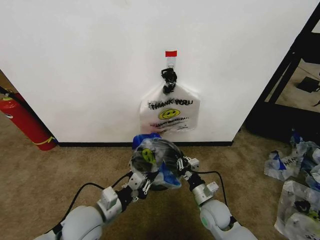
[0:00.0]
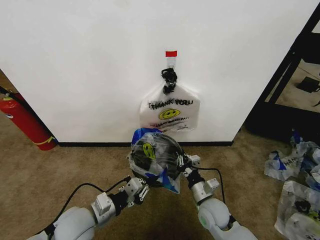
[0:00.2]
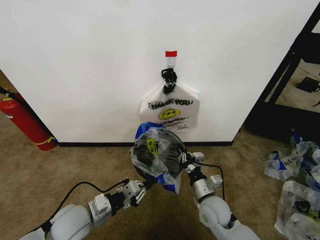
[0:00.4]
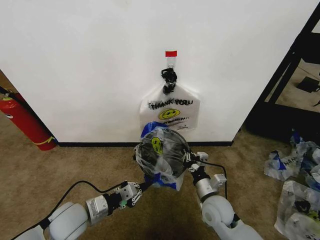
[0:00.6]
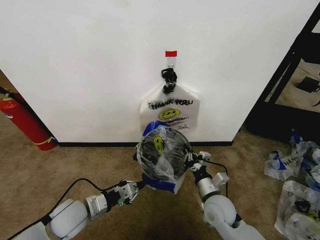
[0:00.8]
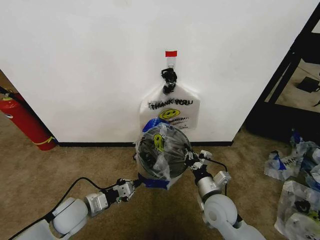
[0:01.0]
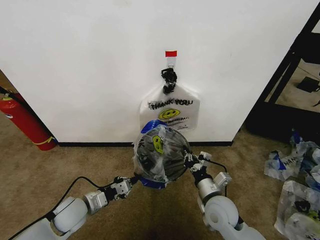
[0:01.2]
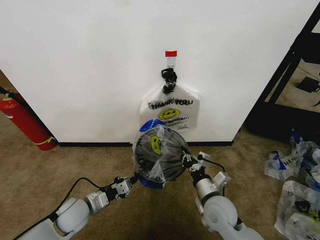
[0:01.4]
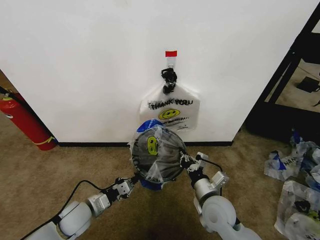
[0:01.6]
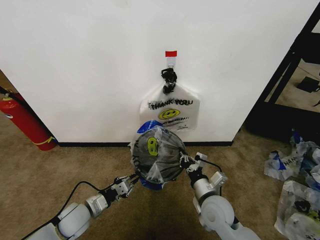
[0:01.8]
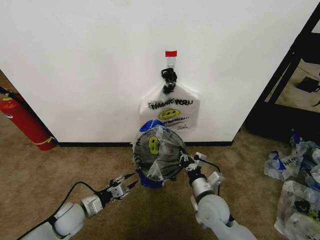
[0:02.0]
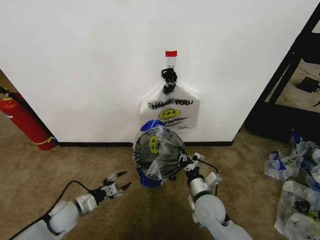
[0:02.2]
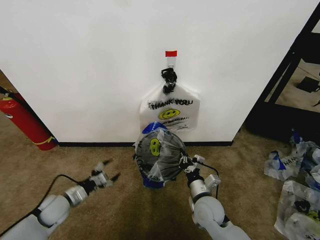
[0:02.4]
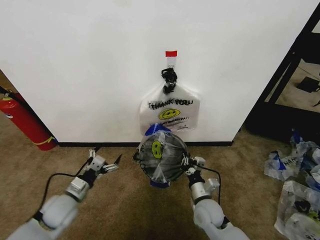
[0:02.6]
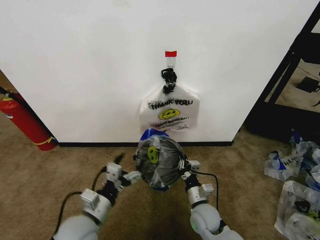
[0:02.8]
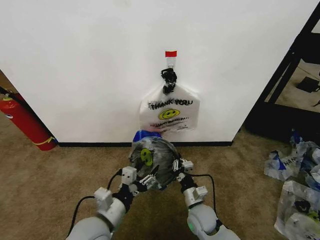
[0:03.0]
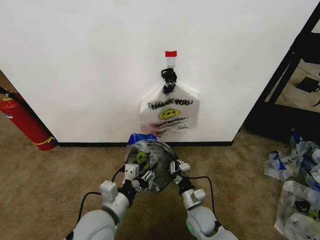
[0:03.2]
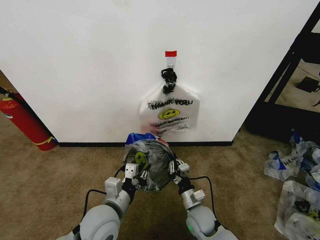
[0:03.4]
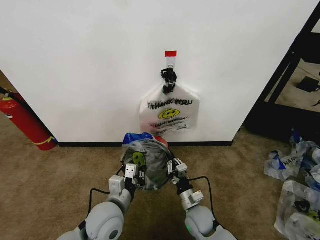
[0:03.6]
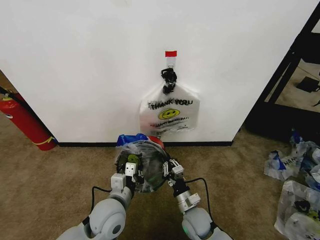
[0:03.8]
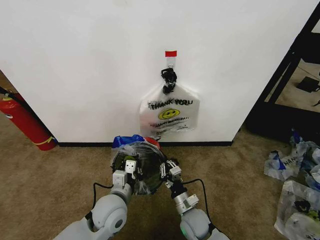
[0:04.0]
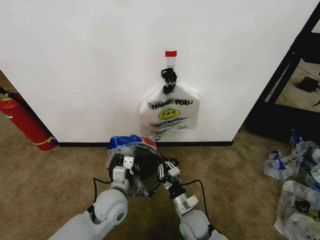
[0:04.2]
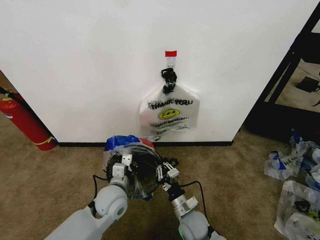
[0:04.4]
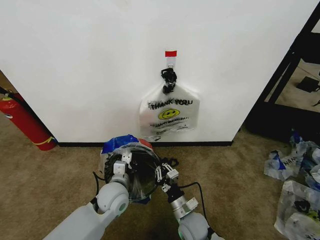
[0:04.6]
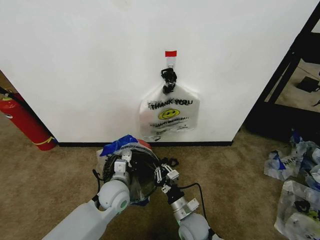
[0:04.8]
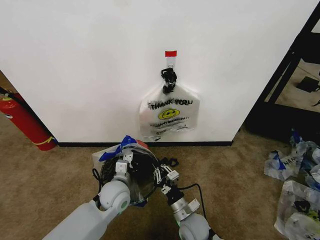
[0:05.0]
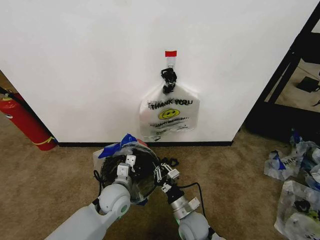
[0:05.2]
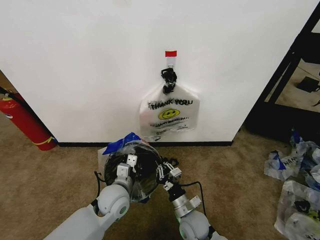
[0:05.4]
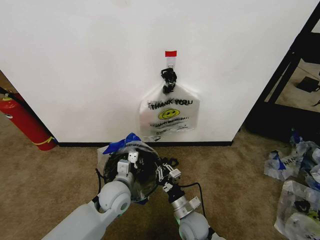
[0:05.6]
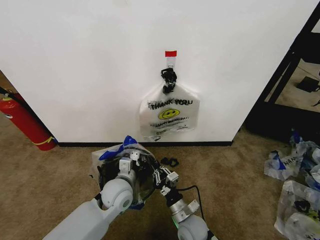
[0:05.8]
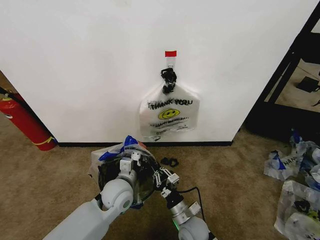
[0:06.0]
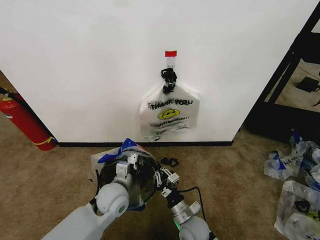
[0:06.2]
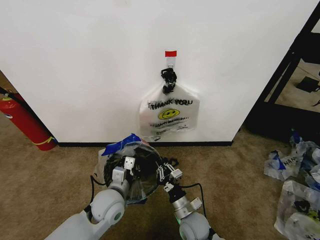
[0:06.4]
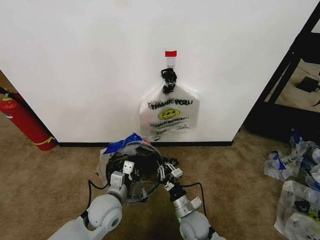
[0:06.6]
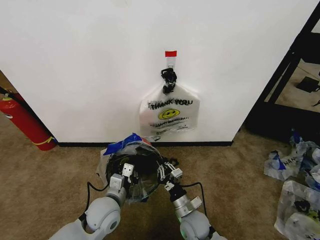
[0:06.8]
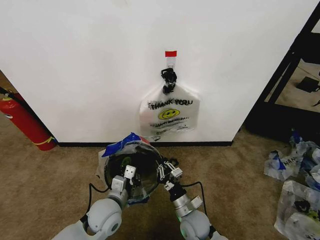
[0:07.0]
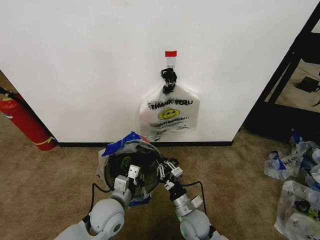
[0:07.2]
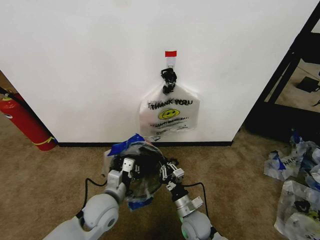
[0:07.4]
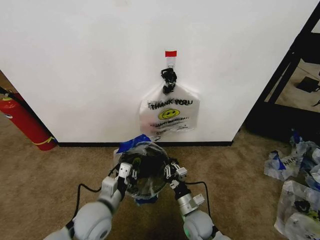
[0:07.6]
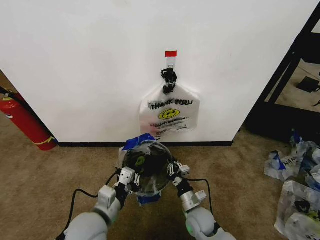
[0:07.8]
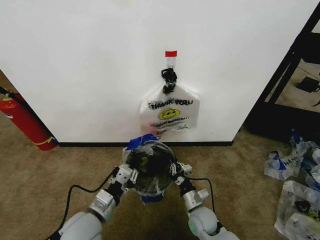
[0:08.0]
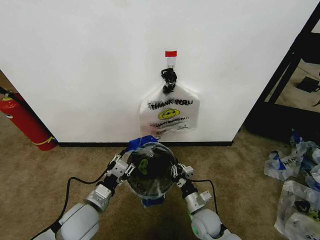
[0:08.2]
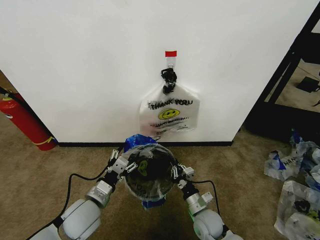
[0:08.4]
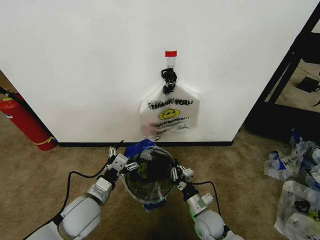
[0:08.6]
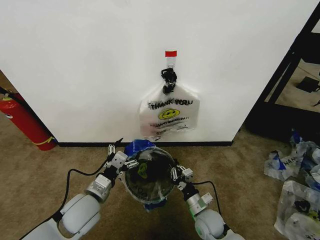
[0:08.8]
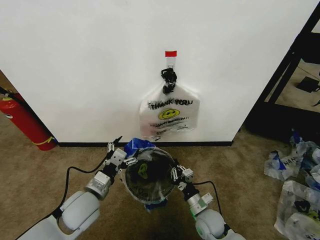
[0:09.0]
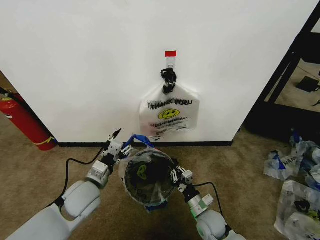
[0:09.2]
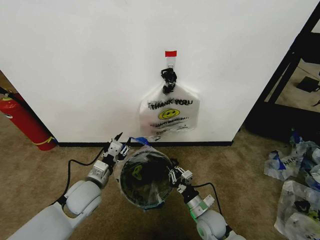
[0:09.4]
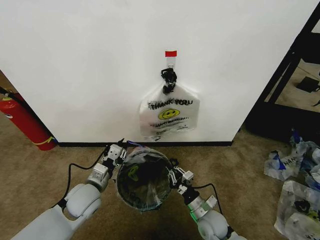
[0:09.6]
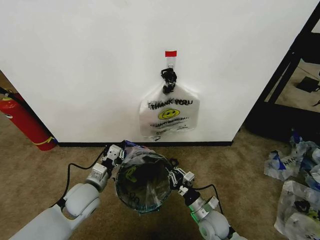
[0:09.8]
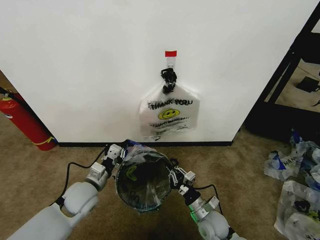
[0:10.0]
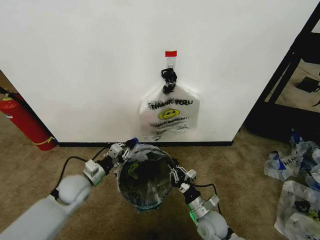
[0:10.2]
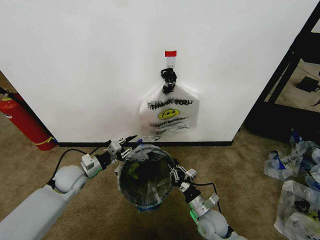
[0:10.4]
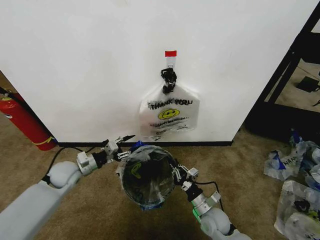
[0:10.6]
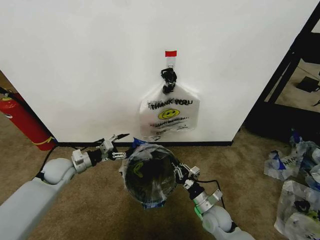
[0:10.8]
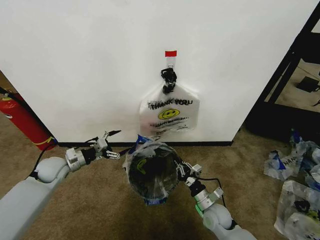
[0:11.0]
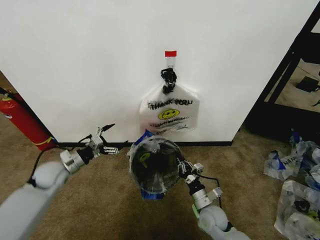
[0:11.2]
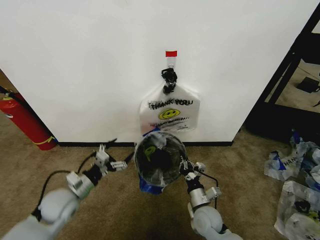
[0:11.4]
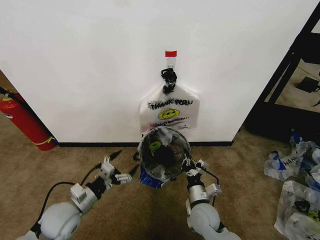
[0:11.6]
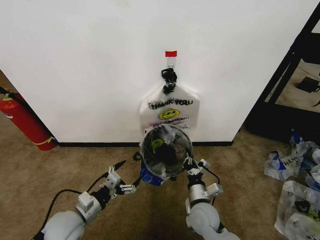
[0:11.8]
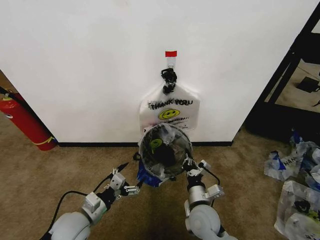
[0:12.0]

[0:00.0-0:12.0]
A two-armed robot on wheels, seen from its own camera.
Task of the whole recording: Pick up the garbage bag from the wall and place it over the trash bin.
0.0 to 1.6 s: The right gripper travels upward by approximately 10 cm; the left gripper travels downward and to the left by about 10 cm.
1.6 to 3.0 s: The right gripper travels downward by some 10 cm. The left gripper shifts approximately 15 cm upward, to the right and backward, and opens.
3.0 to 4.4 s: The left gripper goes roughly 10 cm forward, and closes its fingers.
4.4 to 6.0 s: There are only small adjustments of the grippers.
6.0 to 7.6 s: The left gripper is displaced backward and to the left by approximately 10 cm.
7.6 to 9.0 s: The left gripper moves about 5 cm, and opens its fingers.
9.0 to 10.4 s: The left gripper travels forward and to the left by about 15 cm, and closes its fingers.
10.4 to 12.0 s: The right gripper shifts roughly 5 cm upward. Meanwhile the left gripper travels backward by approximately 15 cm, and opens up.

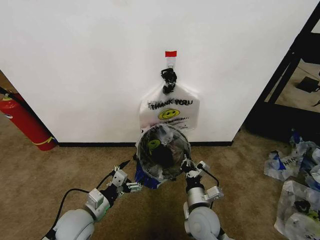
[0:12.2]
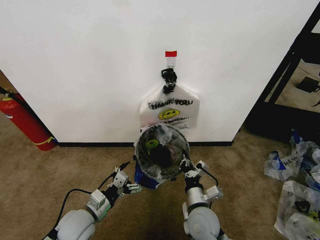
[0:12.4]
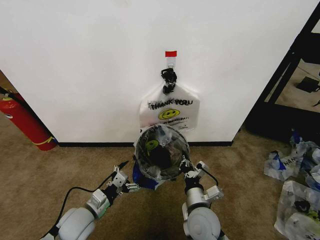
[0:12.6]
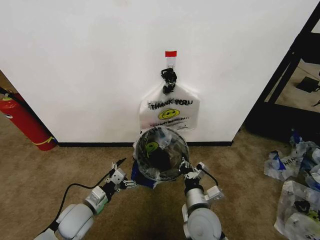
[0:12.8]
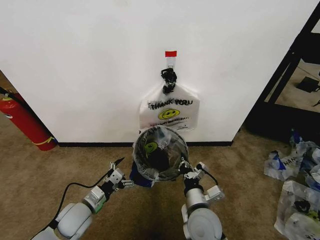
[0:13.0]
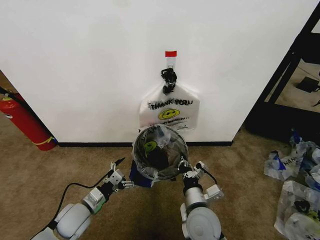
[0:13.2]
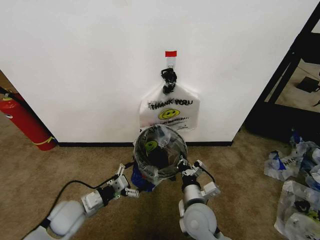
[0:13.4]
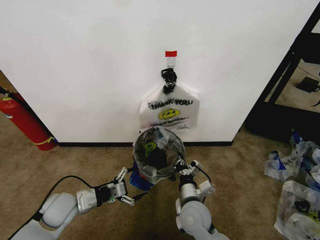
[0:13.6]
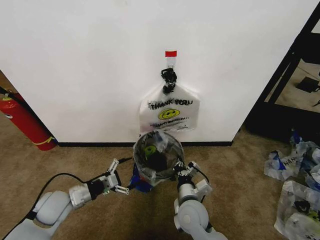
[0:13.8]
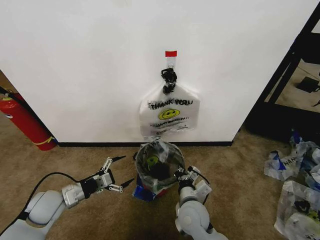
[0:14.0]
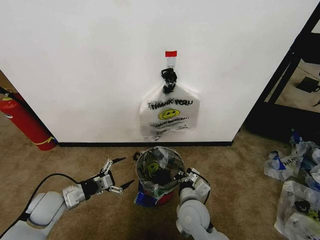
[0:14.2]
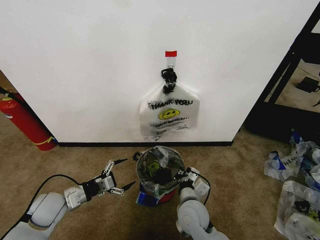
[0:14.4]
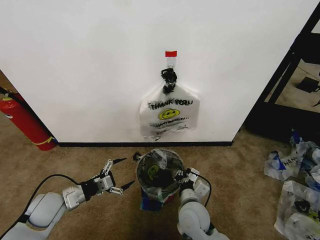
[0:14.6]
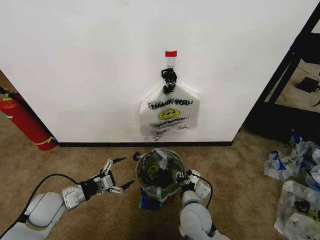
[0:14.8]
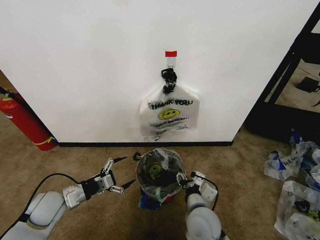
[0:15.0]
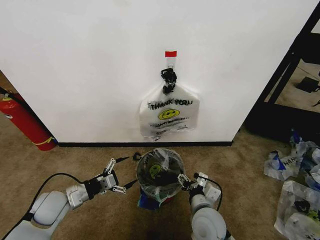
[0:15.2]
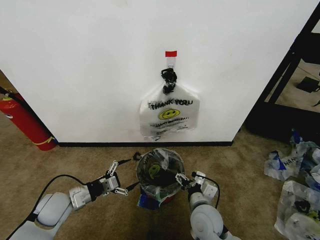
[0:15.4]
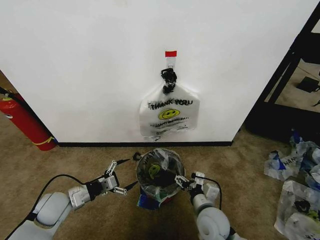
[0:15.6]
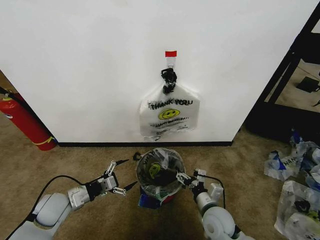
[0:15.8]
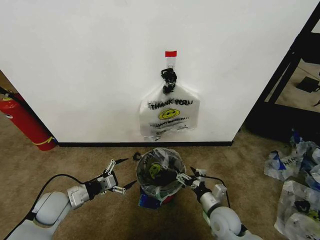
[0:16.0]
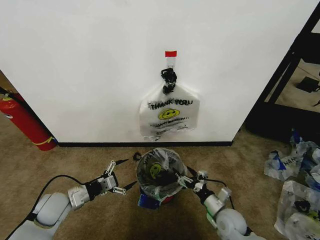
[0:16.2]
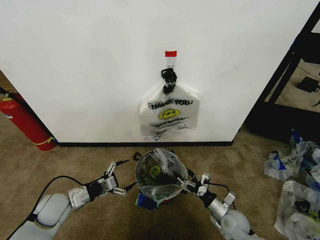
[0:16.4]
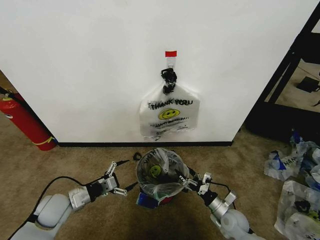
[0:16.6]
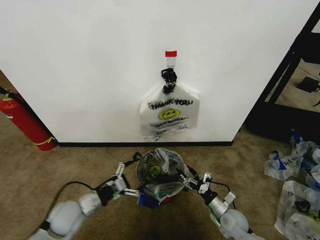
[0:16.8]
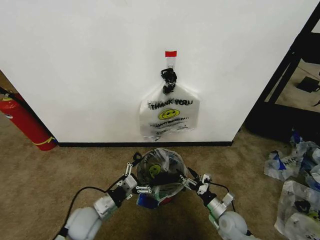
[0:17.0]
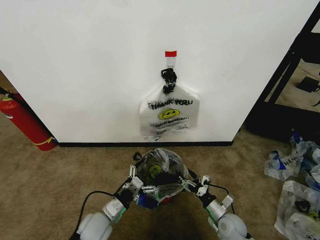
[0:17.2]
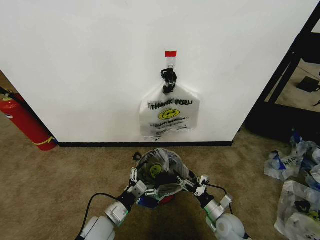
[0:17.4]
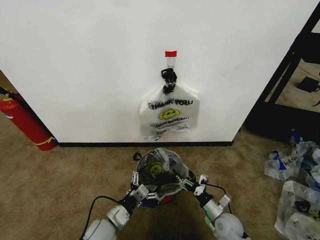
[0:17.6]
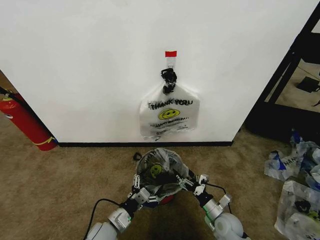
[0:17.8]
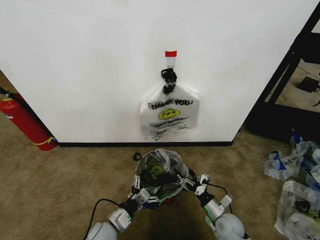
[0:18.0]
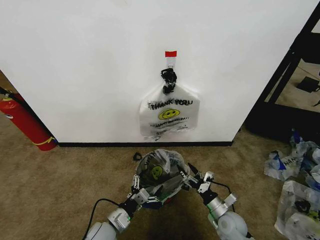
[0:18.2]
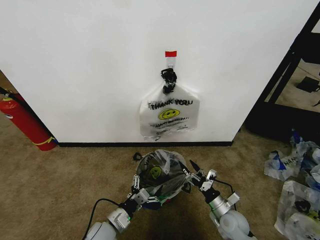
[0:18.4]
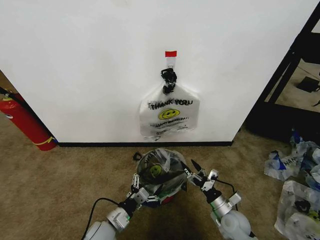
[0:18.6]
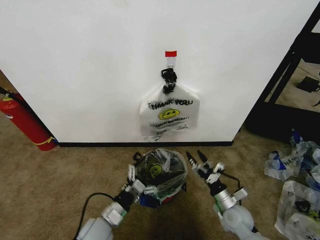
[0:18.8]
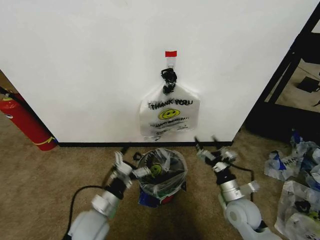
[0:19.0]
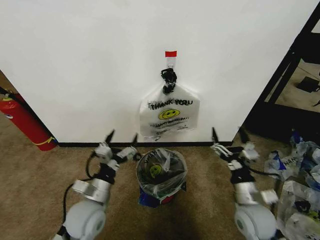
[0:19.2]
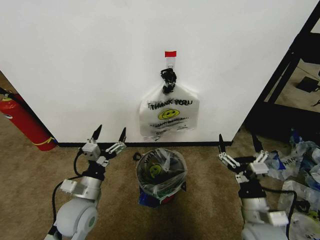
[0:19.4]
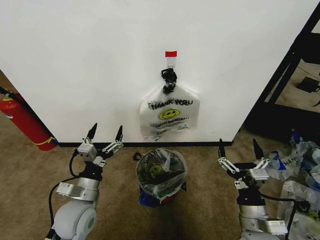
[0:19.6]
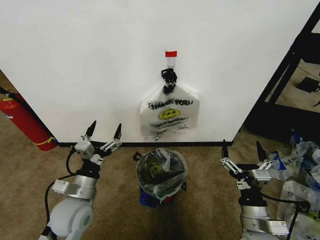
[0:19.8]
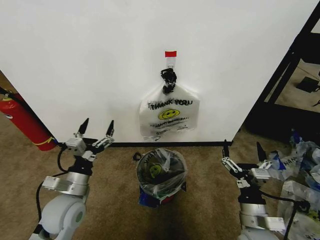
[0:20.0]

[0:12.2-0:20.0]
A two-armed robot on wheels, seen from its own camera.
Task of the whole recording: Pick up the garbage bag from the wall and place it over the trash bin.
12.2 to 13.8 s: The left gripper shifts roughly 10 cm to the left and forward.
13.8 to 15.4 s: The right gripper opens up.
15.4 to 16.8 s: The right gripper is displaced to the right and downward by about 20 cm; the left gripper shifts by some 5 cm.
16.8 to 18.4 s: The left gripper heads to the right and downward, covering approximately 10 cm.
18.4 to 20.0 s: The right gripper is displaced upward and backward by some 15 cm. Meanwhile the left gripper travels upward by some 15 cm.

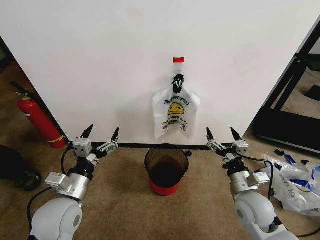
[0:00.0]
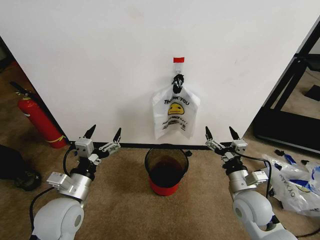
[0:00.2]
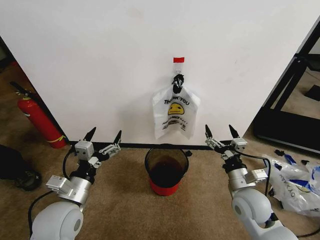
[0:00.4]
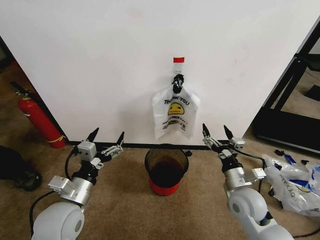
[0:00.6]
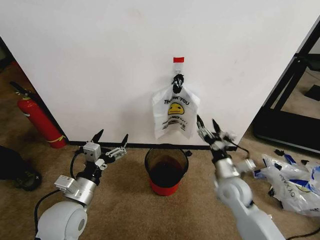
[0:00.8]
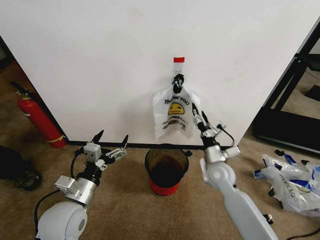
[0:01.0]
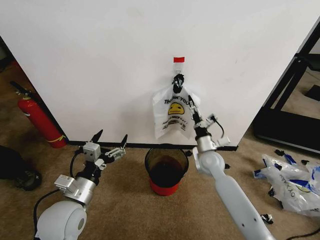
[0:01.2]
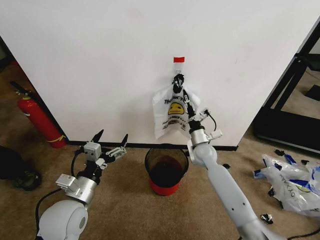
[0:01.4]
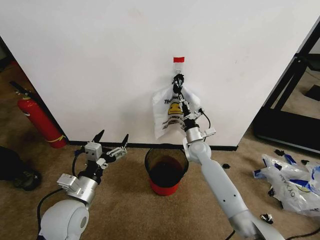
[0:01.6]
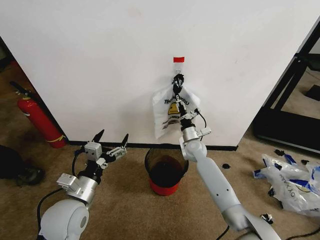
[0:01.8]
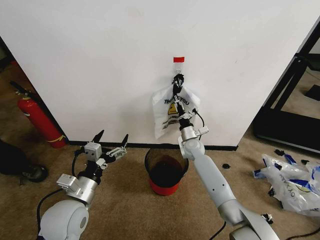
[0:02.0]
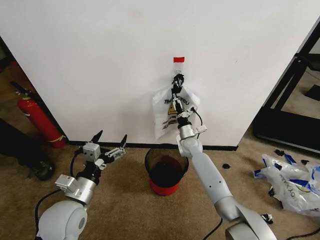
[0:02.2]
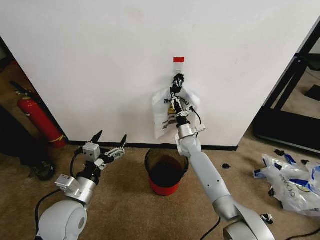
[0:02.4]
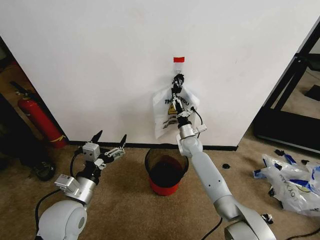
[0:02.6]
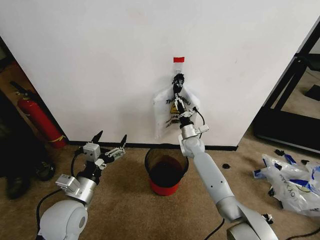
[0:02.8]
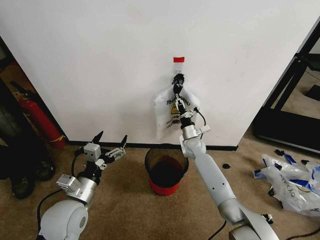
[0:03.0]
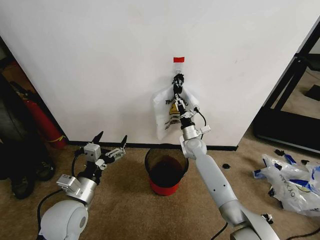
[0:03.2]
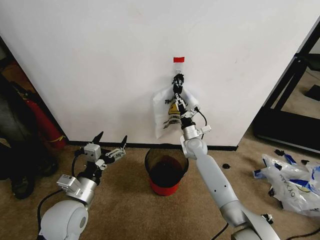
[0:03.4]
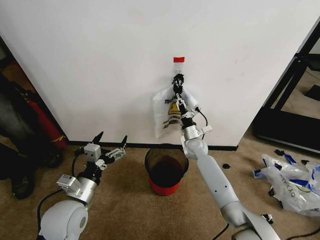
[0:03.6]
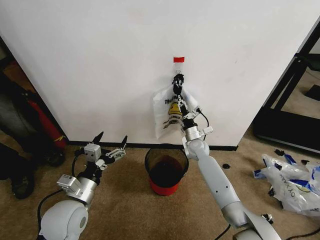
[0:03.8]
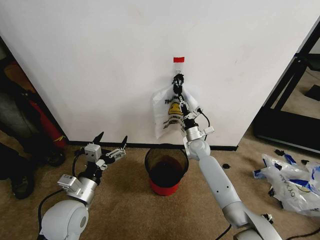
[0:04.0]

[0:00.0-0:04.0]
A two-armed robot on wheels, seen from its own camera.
Task of the whole recording: Pick up the garbage bag from the wall and place it over the trash bin.
1.4 to 2.6 s: The right gripper shifts roughly 5 cm forward.
2.6 to 4.0 s: The right gripper closes up.
